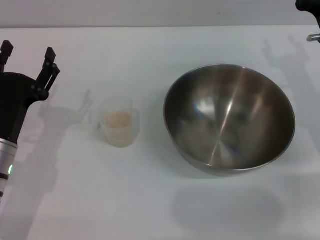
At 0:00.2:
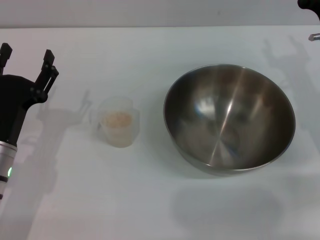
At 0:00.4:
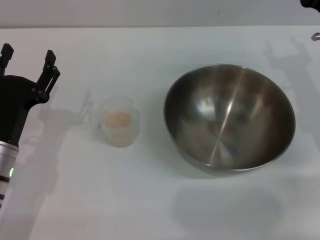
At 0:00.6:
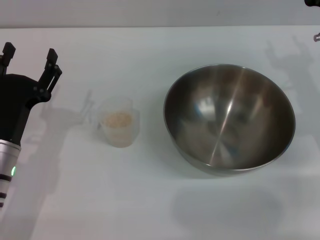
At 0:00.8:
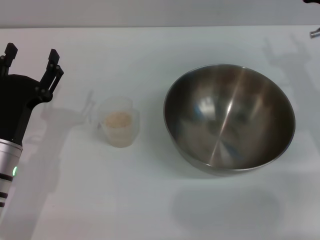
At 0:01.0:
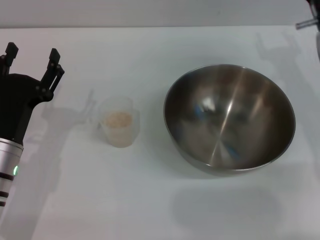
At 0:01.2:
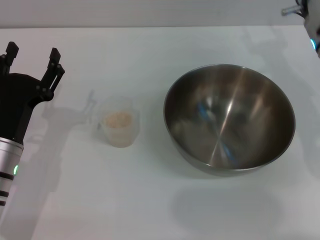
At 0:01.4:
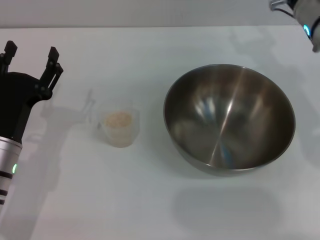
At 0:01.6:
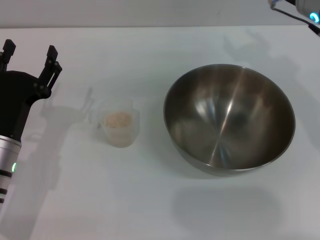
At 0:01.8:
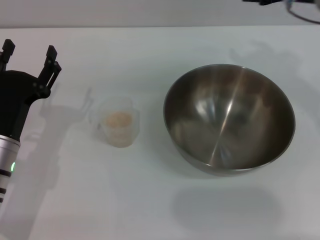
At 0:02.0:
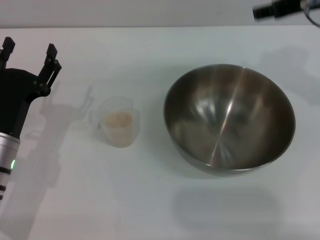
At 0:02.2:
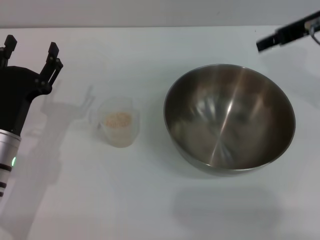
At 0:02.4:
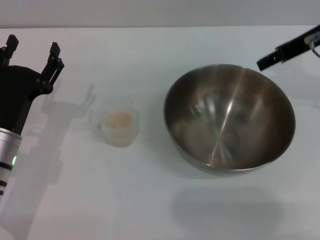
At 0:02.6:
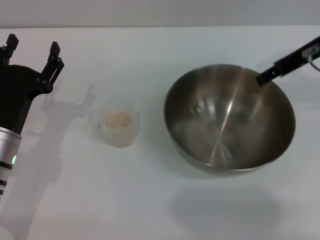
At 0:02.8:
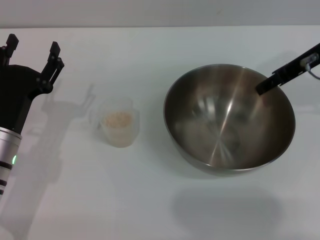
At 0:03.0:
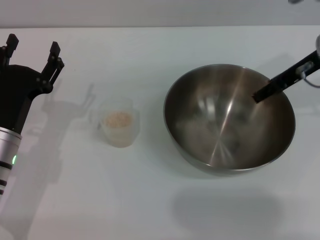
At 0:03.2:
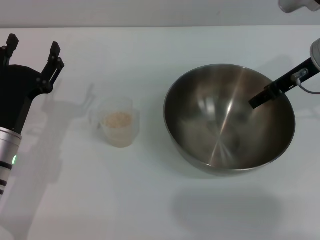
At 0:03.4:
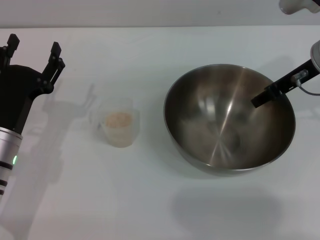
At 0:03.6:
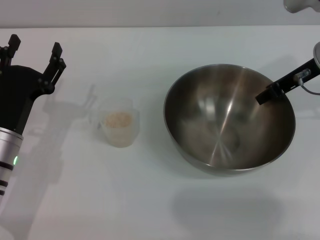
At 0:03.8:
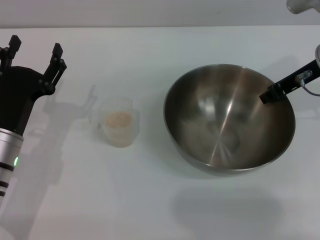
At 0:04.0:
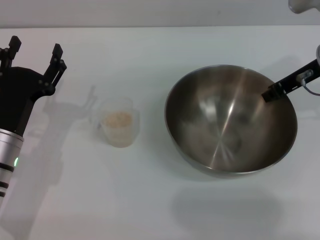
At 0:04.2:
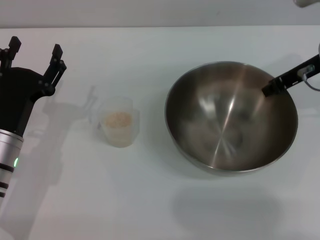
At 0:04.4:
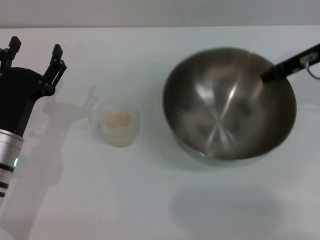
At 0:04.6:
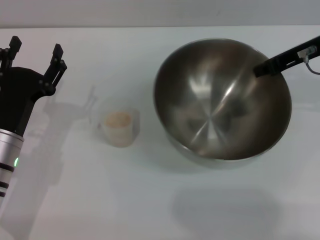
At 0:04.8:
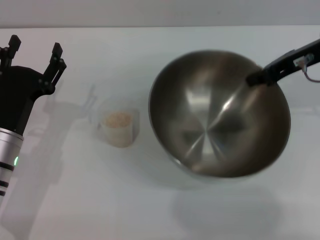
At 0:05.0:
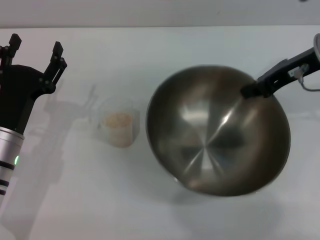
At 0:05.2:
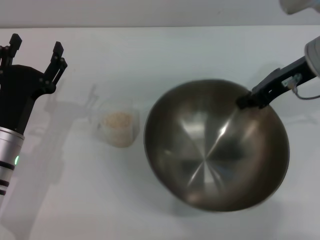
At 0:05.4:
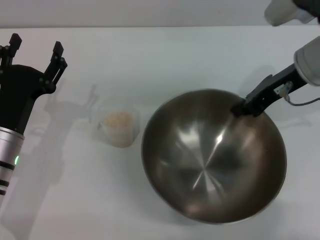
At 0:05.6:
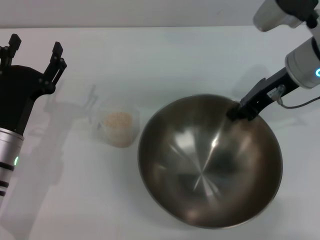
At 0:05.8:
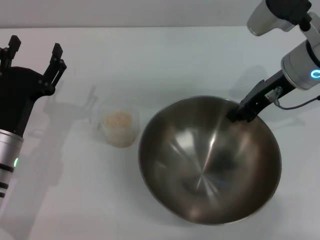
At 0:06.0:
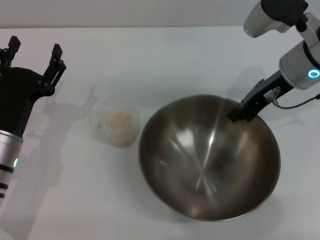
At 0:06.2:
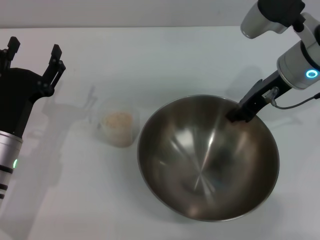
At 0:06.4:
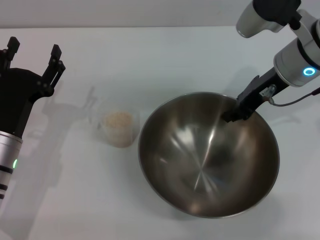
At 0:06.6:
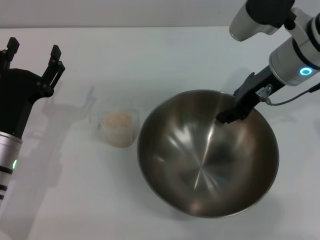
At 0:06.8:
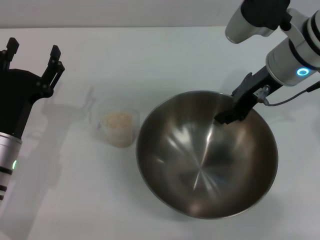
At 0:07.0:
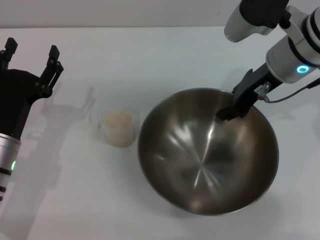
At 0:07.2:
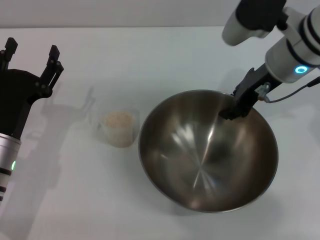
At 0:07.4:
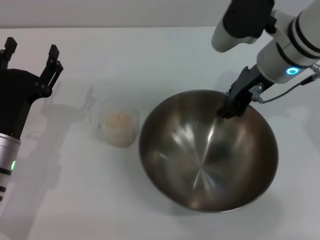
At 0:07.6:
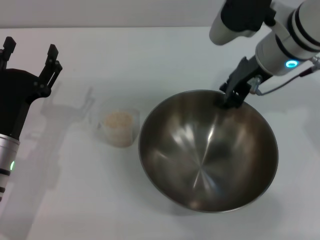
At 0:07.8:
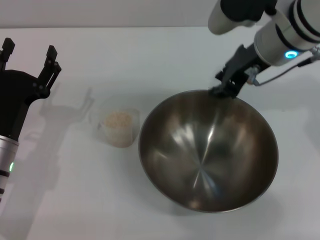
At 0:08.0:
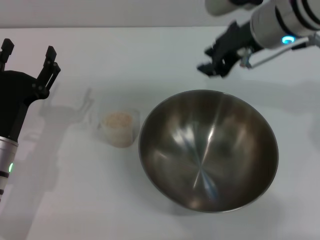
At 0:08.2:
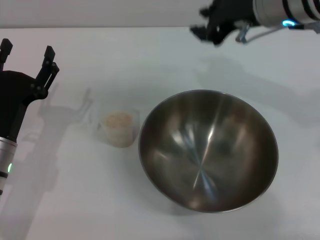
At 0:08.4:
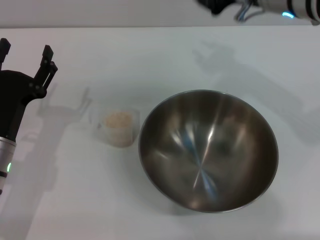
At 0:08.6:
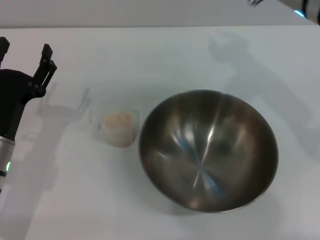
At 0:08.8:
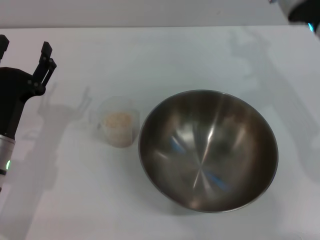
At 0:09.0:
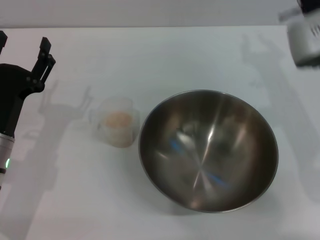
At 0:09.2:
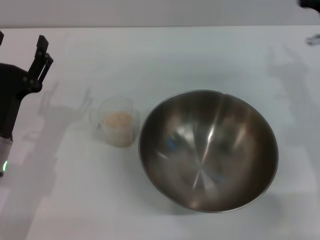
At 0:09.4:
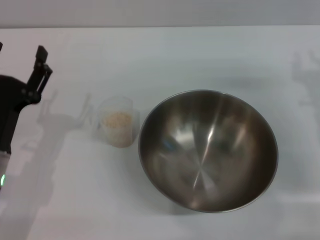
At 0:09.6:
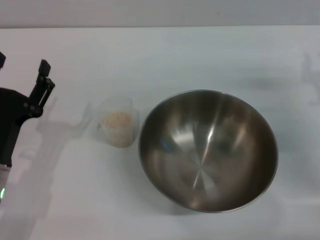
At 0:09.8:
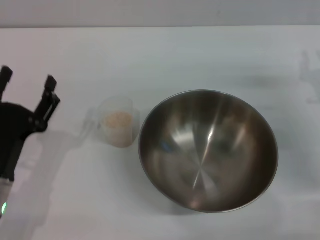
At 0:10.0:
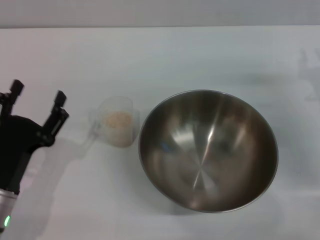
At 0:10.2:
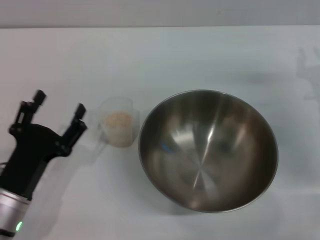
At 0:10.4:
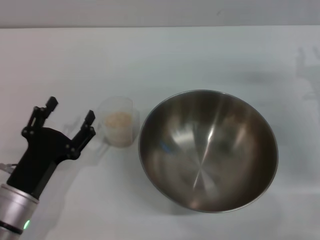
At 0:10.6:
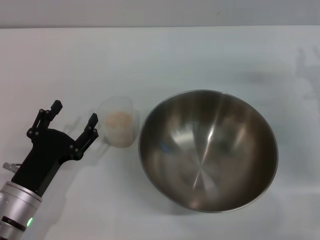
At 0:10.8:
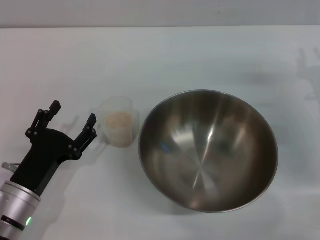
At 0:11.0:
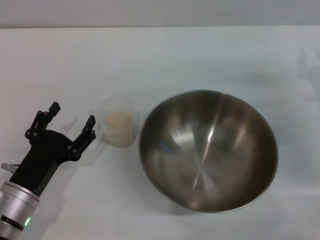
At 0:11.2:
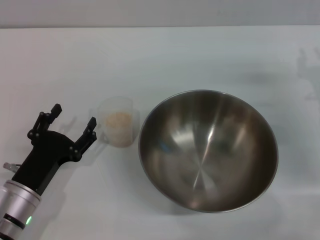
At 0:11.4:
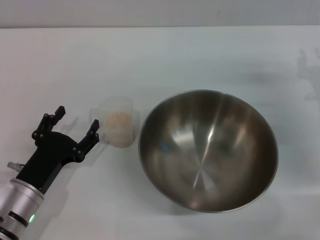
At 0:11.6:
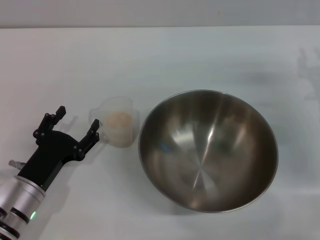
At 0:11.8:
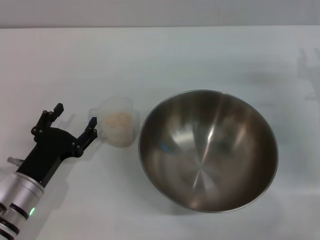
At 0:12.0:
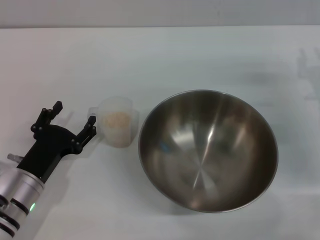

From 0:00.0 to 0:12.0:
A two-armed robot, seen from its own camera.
Task of the whole recording: Place the bowl in the middle of the table with one hand and pour the rice from the grain cup into it with the other hand.
Step, from 0:00.0 to 0:04.6: Pick up the bowl with the right gripper.
Step, from 0:04.8 to 0:07.6: Place the bowl in the center of view with the right gripper.
From 0:00.0 to 0:01.6: The right gripper shifts some 15 cm upward and to the left.
From 0:03.0 to 0:04.4: The right gripper closes.
From 0:04.4 to 0:06.0: The right gripper shifts some 5 cm to the left.
From 0:06.0 to 0:07.6: The right gripper opens its fingers.
From 0:07.6 to 0:09.0: The right gripper shifts by roughly 10 cm.
From 0:09.0 to 0:10.4: The left gripper moves backward, approximately 5 cm, while the right gripper moves to the right and downward, roughly 15 cm.
From 0:10.4 to 0:12.0: The grippers make only small movements.

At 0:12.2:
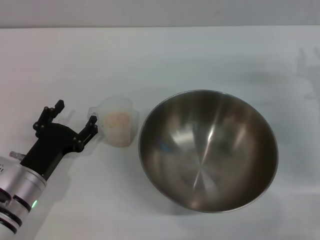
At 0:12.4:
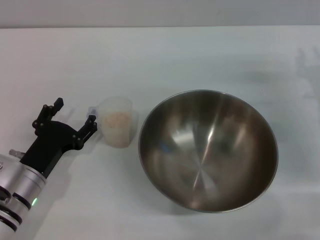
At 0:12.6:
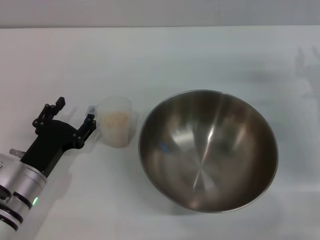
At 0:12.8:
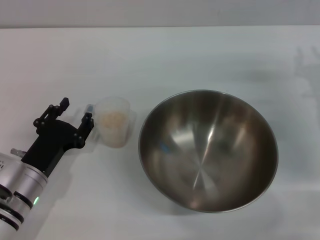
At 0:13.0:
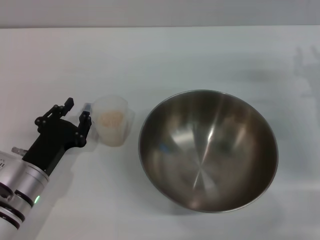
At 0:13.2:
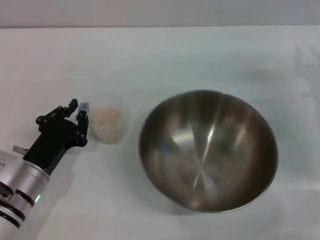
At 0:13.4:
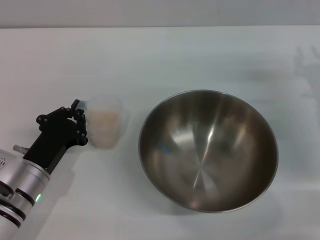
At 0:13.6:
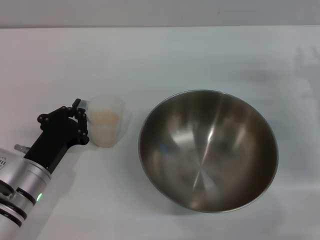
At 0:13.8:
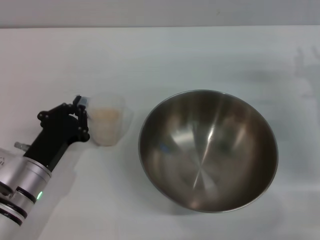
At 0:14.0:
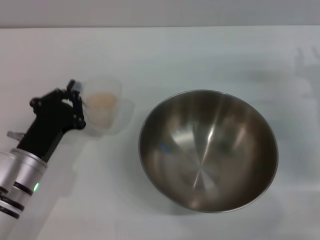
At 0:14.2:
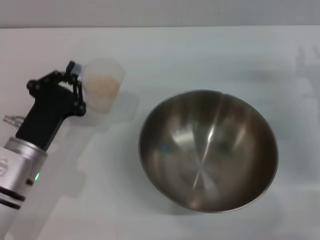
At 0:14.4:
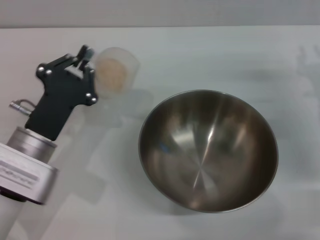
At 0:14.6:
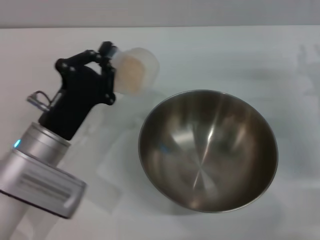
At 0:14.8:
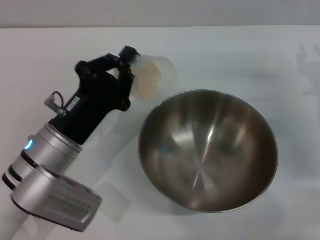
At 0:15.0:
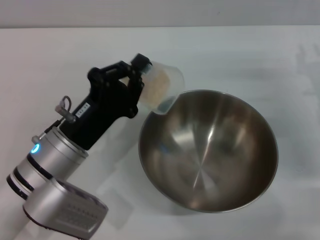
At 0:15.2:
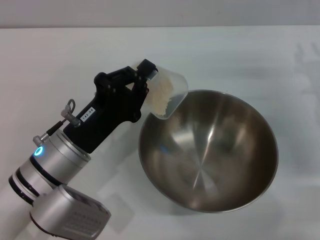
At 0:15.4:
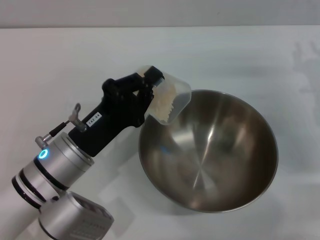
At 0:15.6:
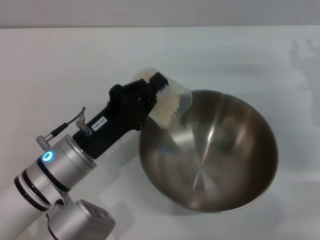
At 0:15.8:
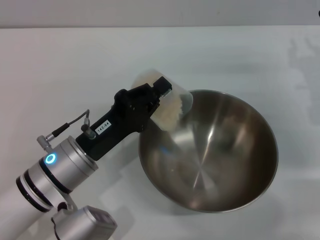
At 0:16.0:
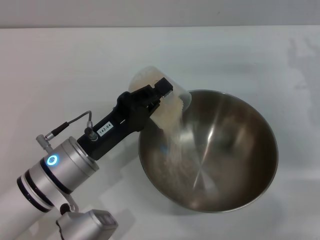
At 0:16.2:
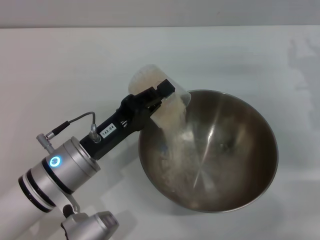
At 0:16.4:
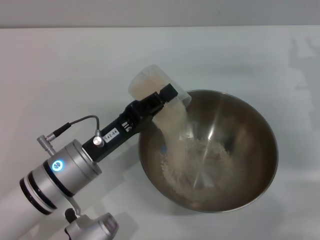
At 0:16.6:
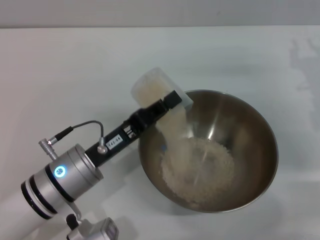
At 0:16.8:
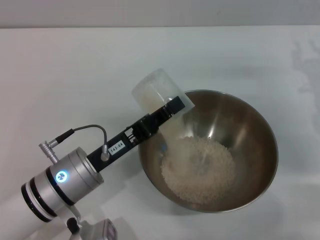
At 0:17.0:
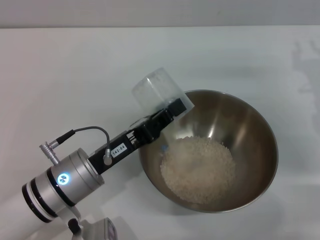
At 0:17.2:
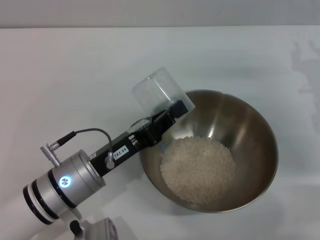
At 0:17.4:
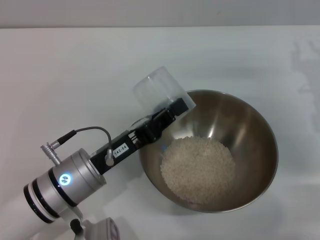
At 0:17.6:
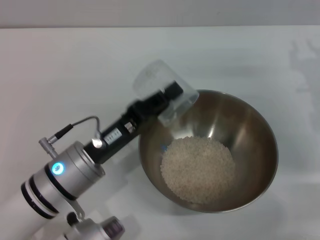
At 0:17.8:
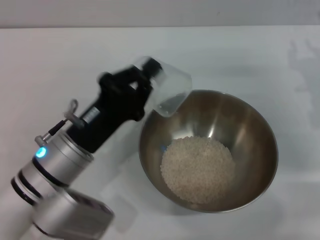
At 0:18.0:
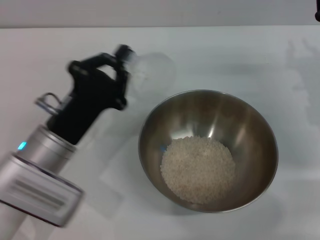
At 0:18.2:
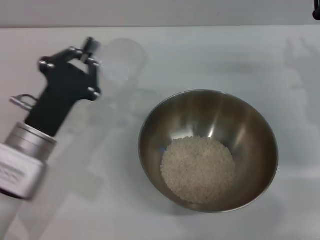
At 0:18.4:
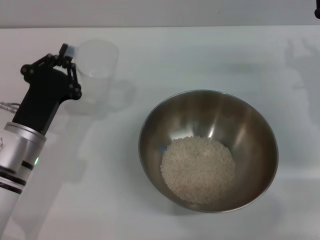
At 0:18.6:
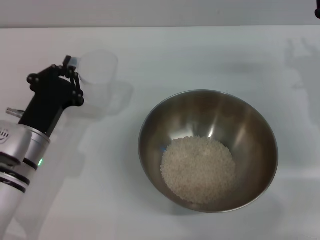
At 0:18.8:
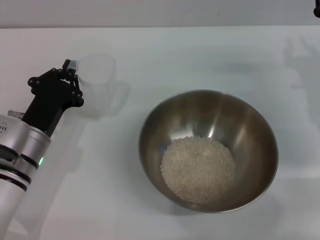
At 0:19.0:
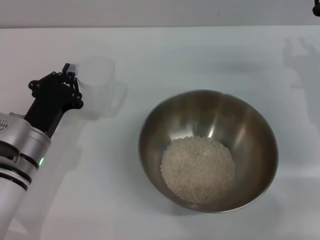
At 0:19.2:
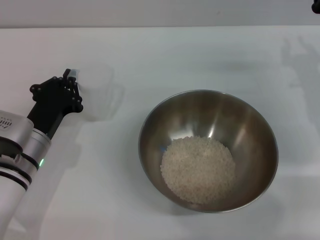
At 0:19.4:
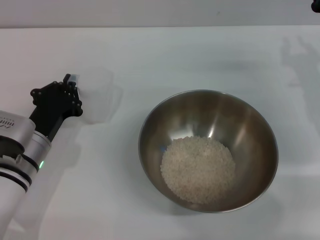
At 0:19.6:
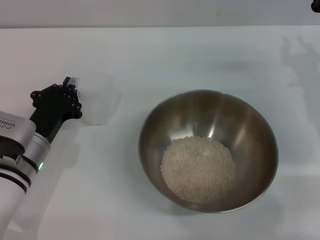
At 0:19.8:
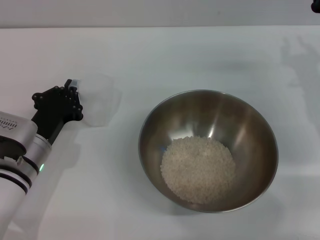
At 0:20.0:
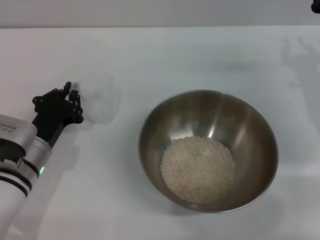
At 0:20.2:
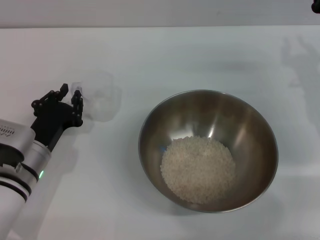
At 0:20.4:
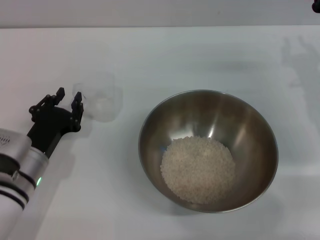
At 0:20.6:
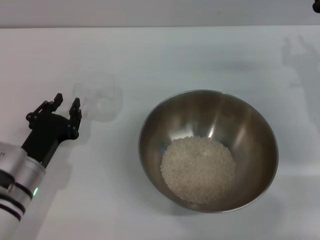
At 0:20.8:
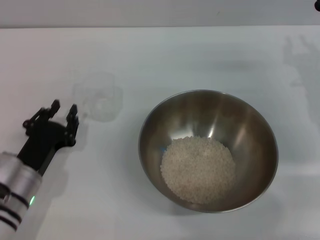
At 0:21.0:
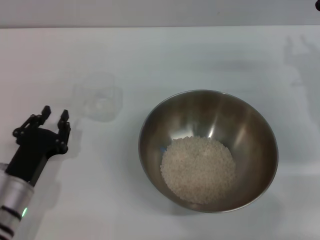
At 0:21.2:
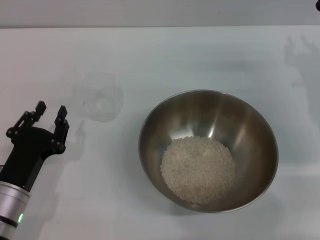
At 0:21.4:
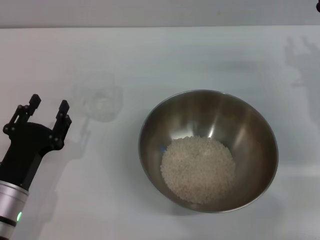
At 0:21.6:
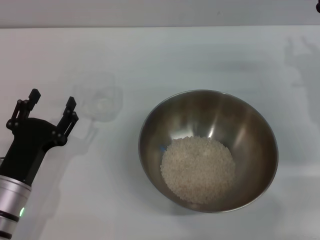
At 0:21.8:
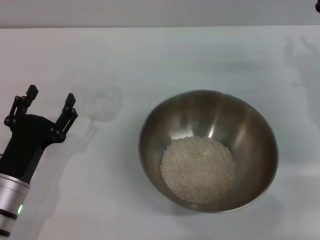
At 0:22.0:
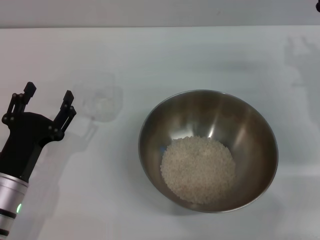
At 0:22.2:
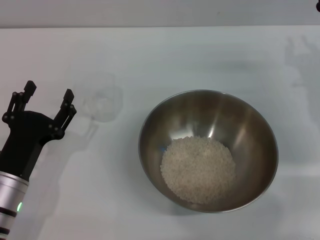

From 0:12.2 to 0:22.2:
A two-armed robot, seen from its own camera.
Task of the whole recording: Place the bowl in the middle of the table with one hand and pour the rice from the grain cup into it with the other hand.
Step, from 0:12.2 to 0:14.2: Pick up the cup with rice in it with the left gripper.
Step, from 0:14.4 to 0:16.6: Pour the rice from the cup into the bowl with the left gripper.
Step, from 0:16.8 to 0:20.2: Place the cup on the table with the left gripper.
From 0:12.2 to 0:13.6: The left gripper closes.
From 0:13.6 to 0:15.0: The left gripper shifts about 10 cm upward and to the right.
From 0:18.0 to 0:19.4: The left gripper moves approximately 5 cm.
From 0:19.4 to 0:20.8: The left gripper moves roughly 5 cm, and opens up.
From 0:20.8 to 0:22.2: The left gripper opens its fingers.
